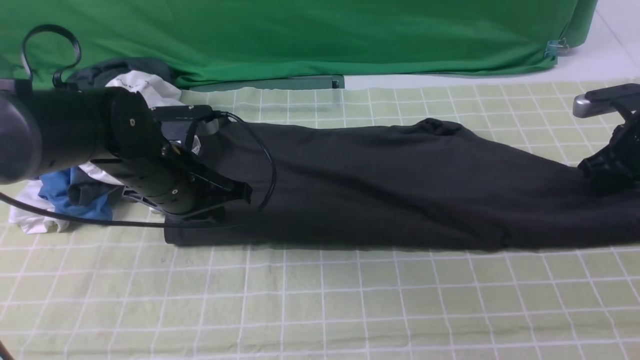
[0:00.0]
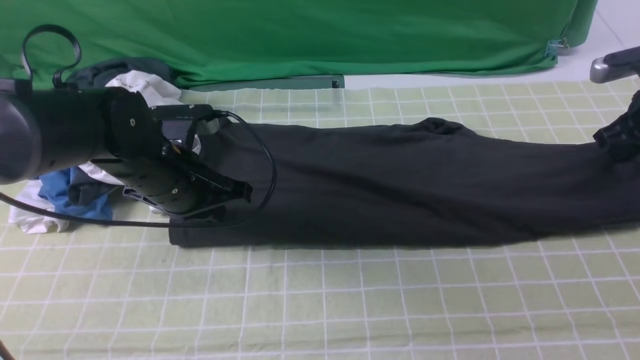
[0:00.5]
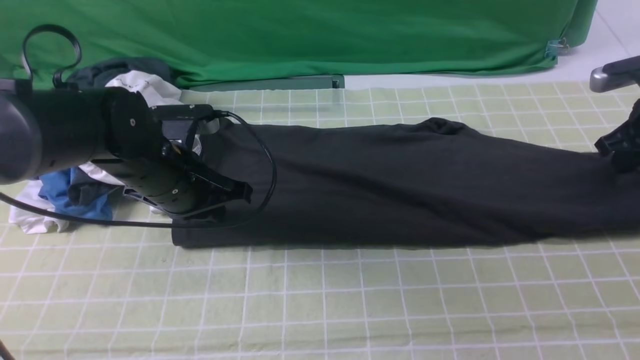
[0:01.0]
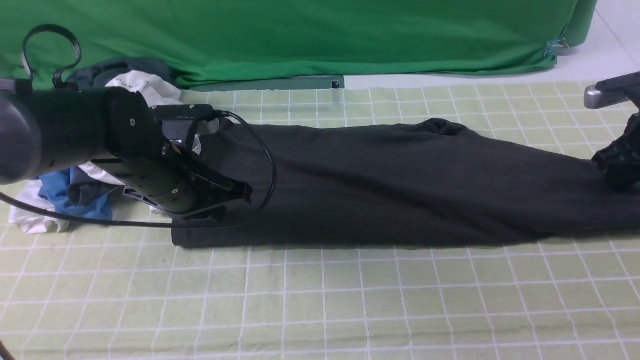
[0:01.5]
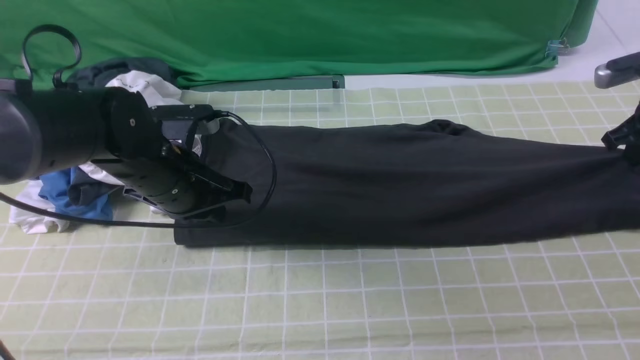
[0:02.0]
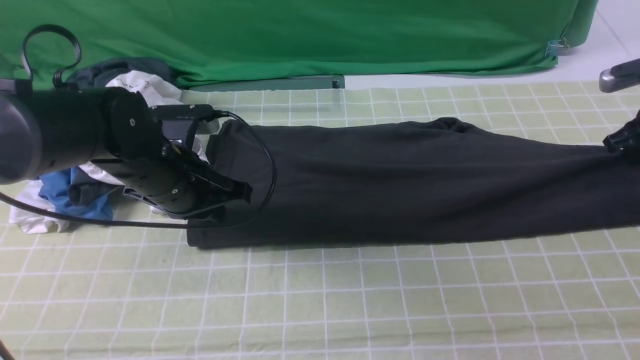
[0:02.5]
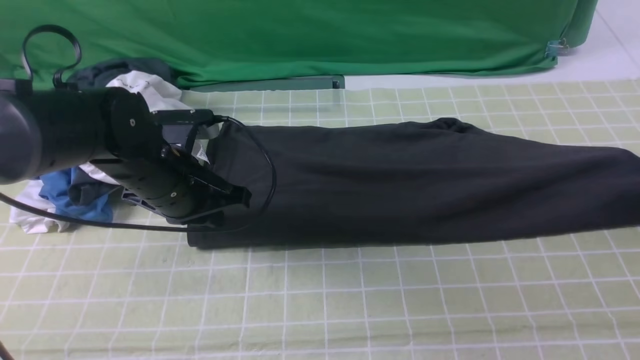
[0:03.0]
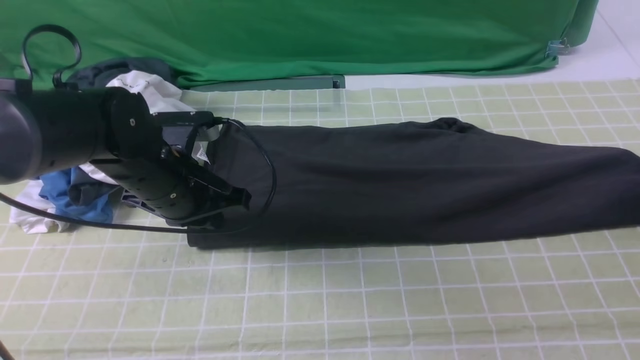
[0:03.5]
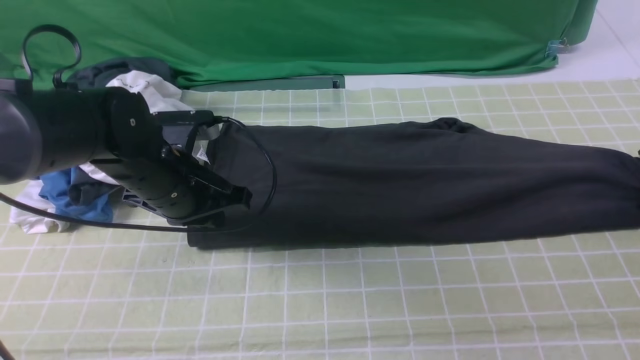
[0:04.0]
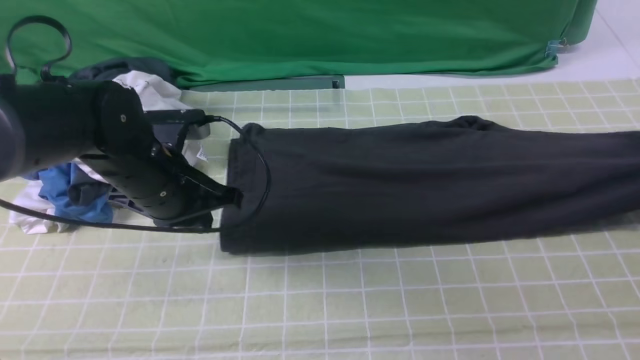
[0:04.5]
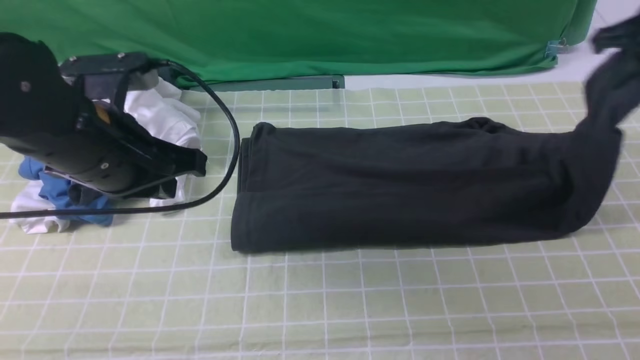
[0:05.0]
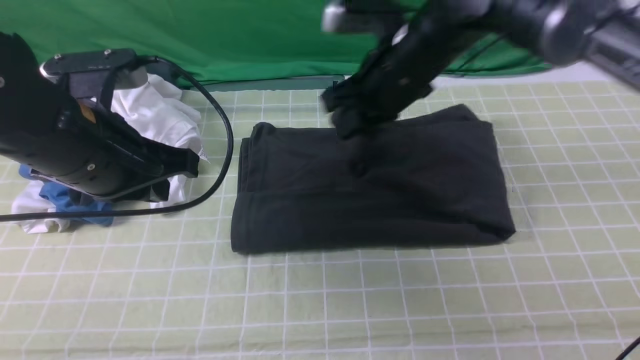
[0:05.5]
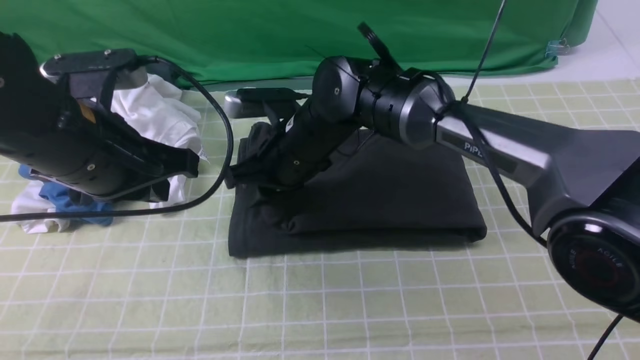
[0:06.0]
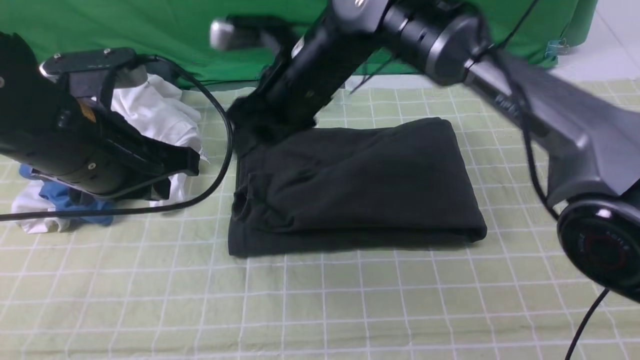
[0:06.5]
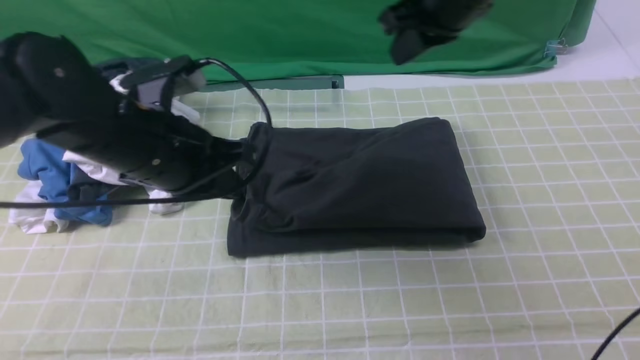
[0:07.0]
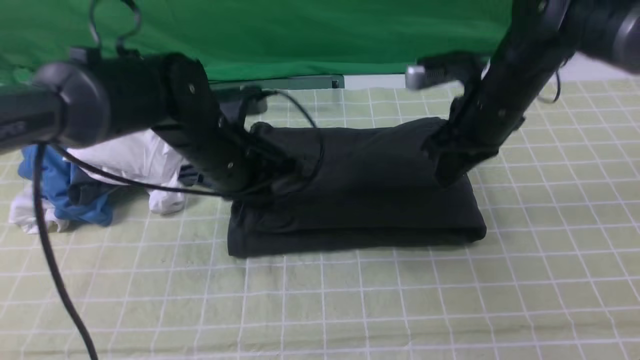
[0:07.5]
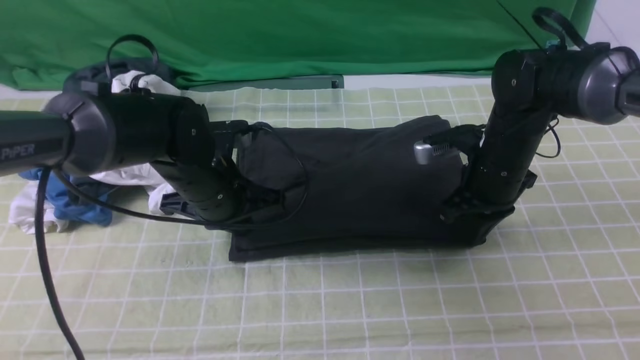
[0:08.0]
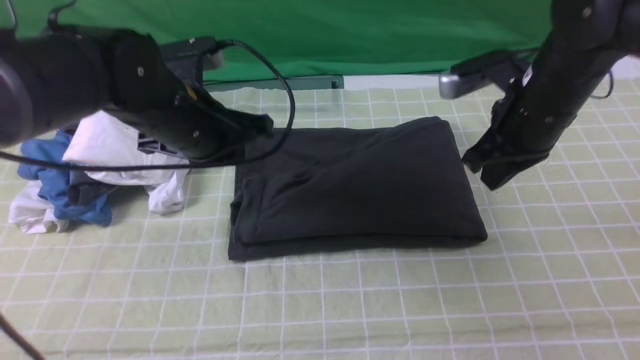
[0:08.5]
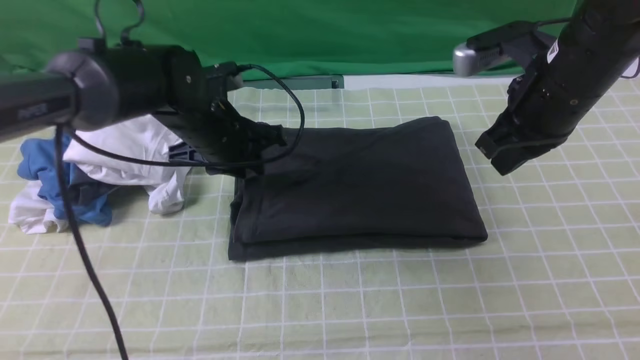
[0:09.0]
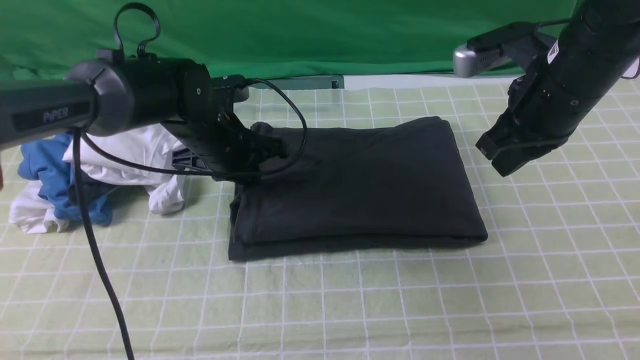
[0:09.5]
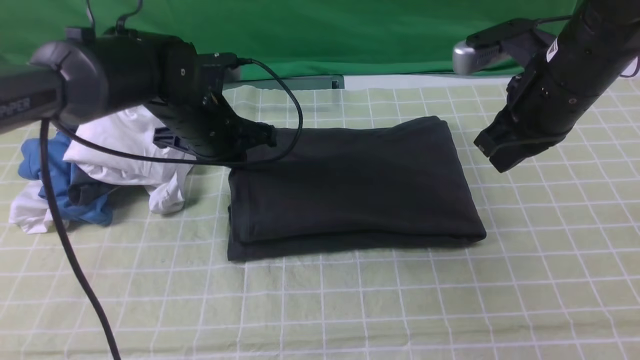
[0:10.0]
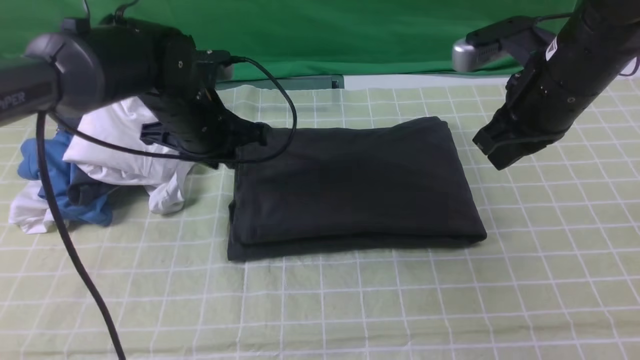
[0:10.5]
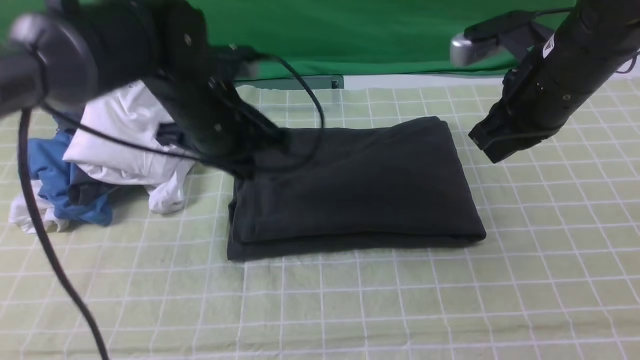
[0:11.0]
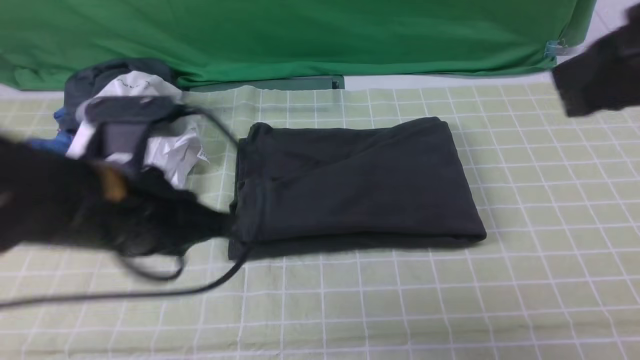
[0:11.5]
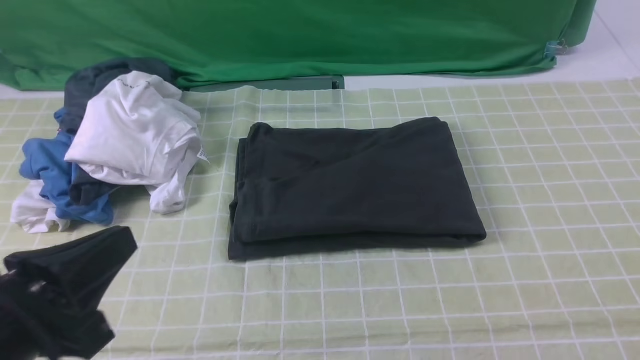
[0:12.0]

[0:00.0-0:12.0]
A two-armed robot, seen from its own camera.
Step, 0:00.0 to 0:04.0: use the right arm to clamp the right edge of the fabric.
Step, 0:04.5 to 0:06.0: use the right arm to drag the right edge of the fabric to the left and folds it over the left edge.
0:00.0 to 0:02.0: The grippers stay close to where they were, moving slightly.
0:02.0 to 0:04.0: The right gripper travels to the right by approximately 5 cm, and opens up.
0:04.0 to 0:06.0: The right gripper moves to the left, some 50 cm, and closes, then reopens. Meanwhile the left gripper is displaced upward and backward by some 10 cm.
0:06.0 to 0:08.0: The left gripper travels downward, forward and to the right by approximately 15 cm. Meanwhile the right gripper heads to the right, covering roughly 20 cm, and closes.
0:08.0 to 0:10.0: The right gripper heads upward, covering some 10 cm. Meanwhile the left gripper travels forward by roughly 5 cm, and opens and closes again.
0:10.0 to 0:12.0: The right gripper moves backward and to the right, about 30 cm; the left gripper heads backward, covering about 30 cm, and opens and closes again.

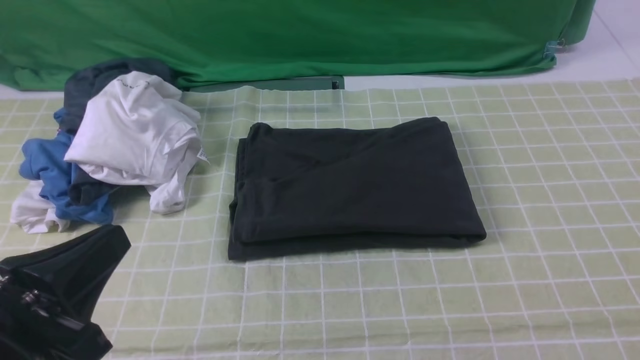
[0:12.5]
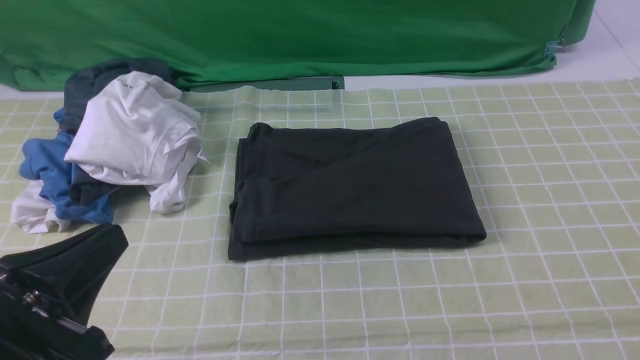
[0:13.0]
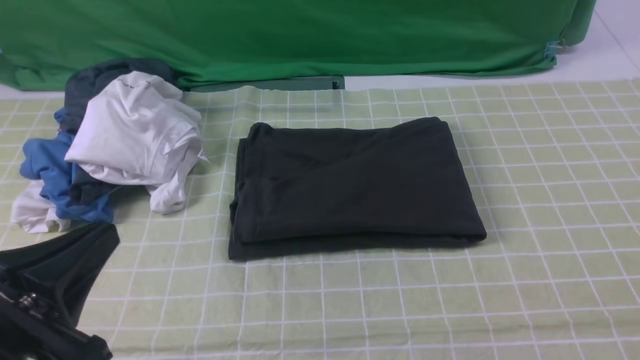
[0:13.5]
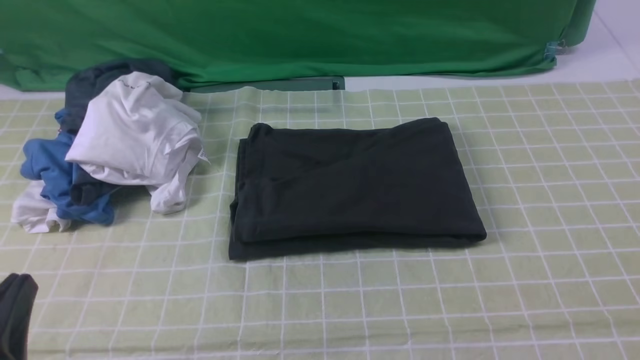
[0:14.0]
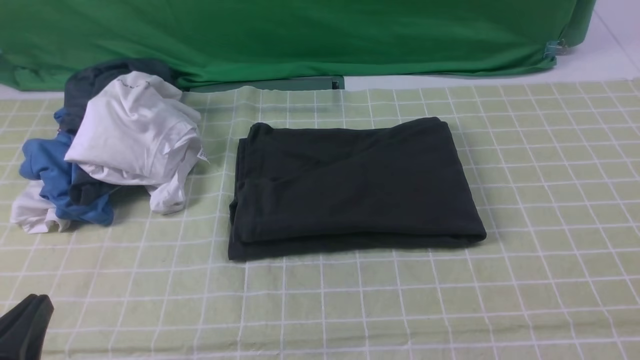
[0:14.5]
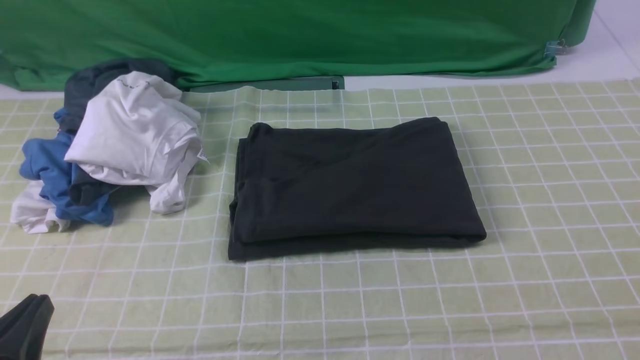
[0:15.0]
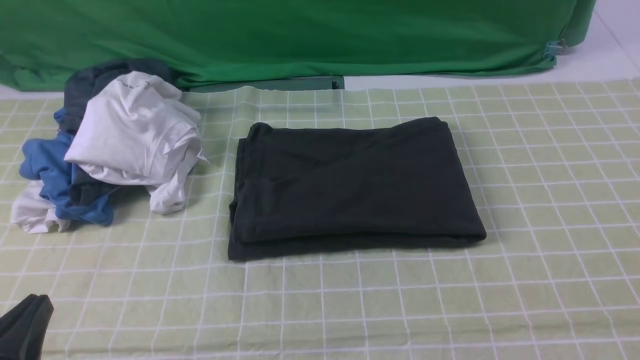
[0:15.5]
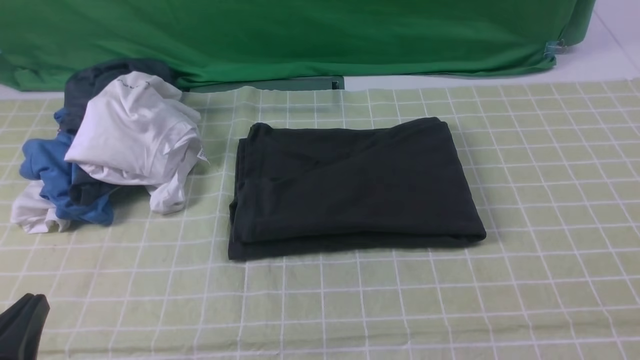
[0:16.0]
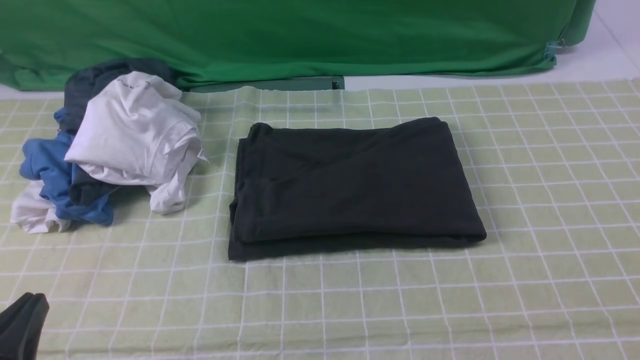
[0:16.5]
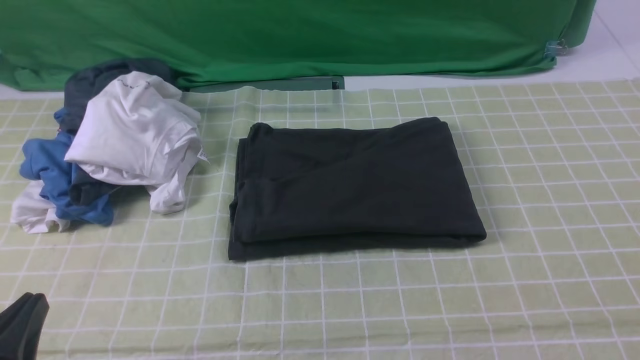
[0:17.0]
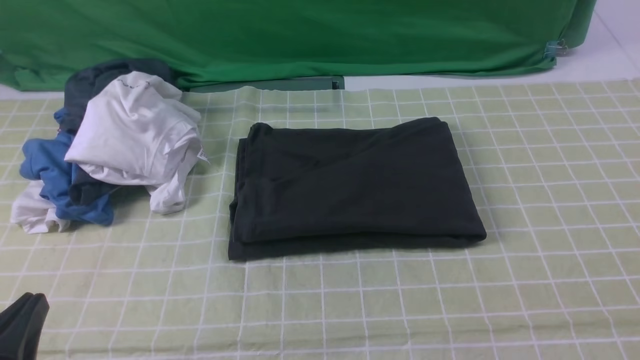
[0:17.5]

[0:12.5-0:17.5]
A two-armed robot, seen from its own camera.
0:12.5 to 0:15.0: The left gripper moves downward, roughly 10 cm.
